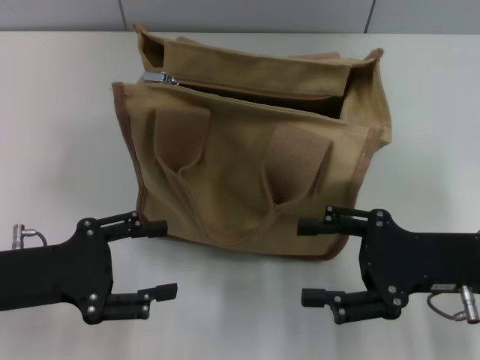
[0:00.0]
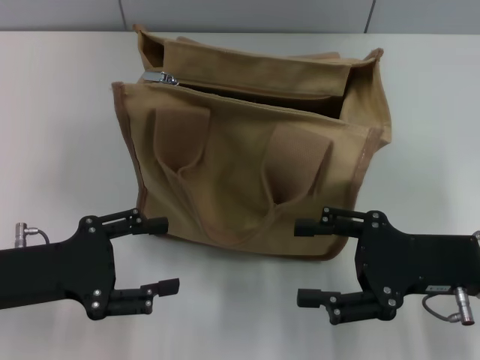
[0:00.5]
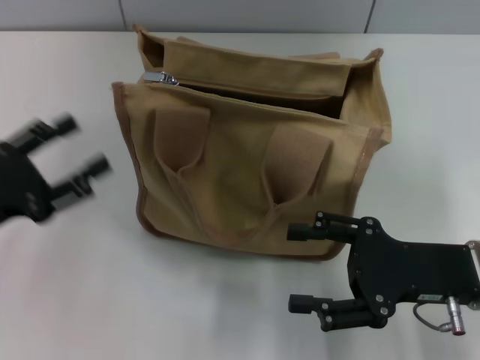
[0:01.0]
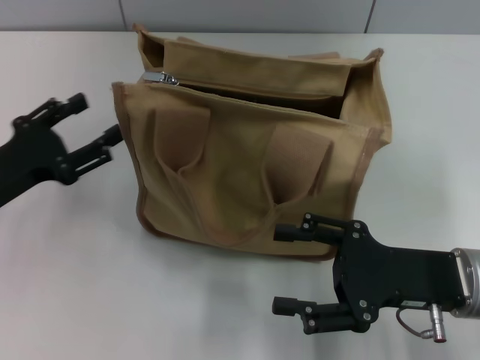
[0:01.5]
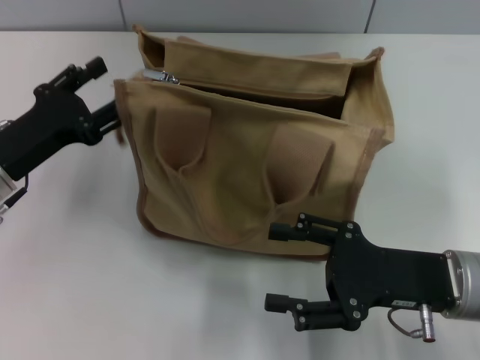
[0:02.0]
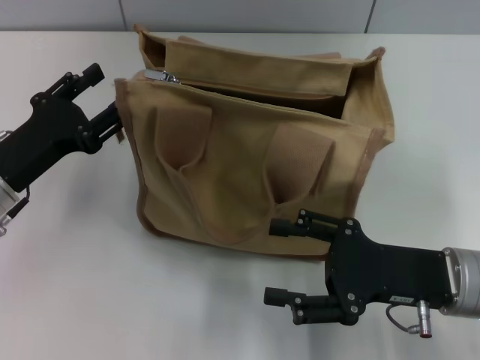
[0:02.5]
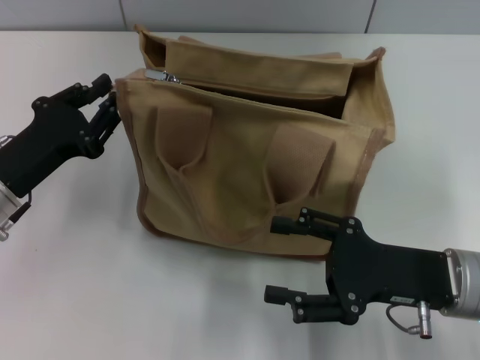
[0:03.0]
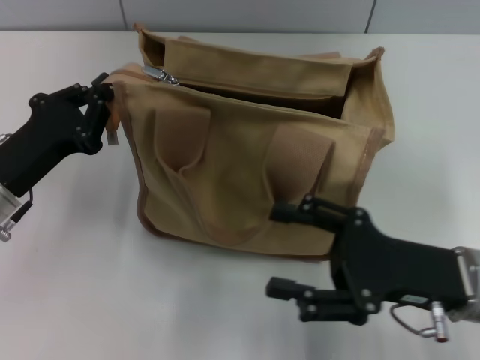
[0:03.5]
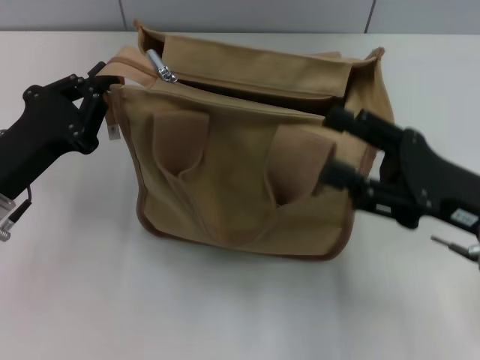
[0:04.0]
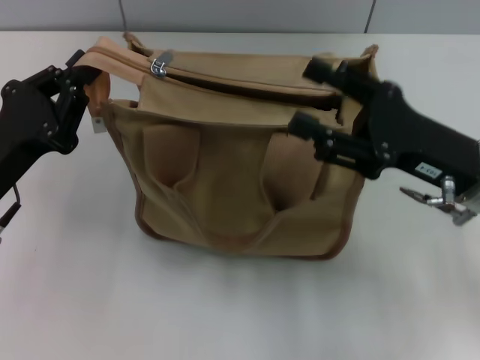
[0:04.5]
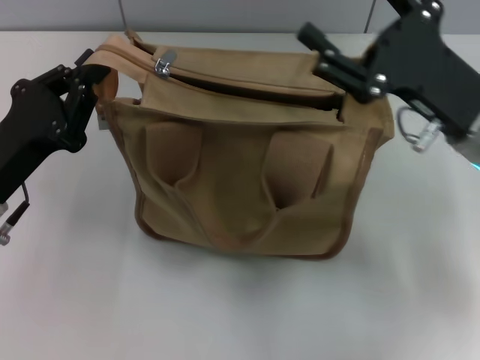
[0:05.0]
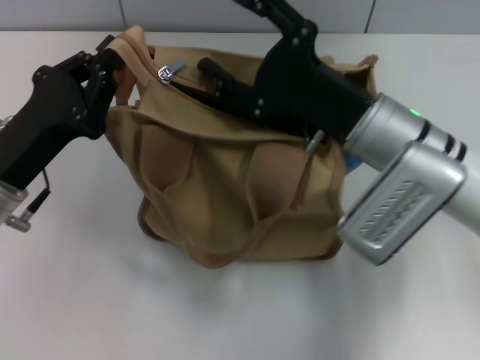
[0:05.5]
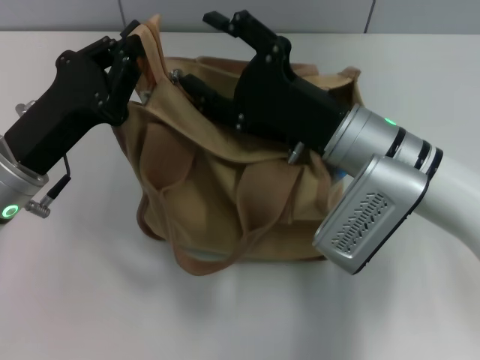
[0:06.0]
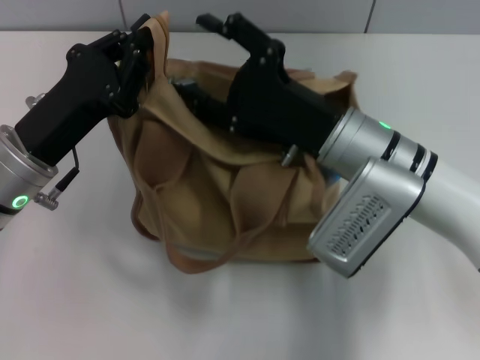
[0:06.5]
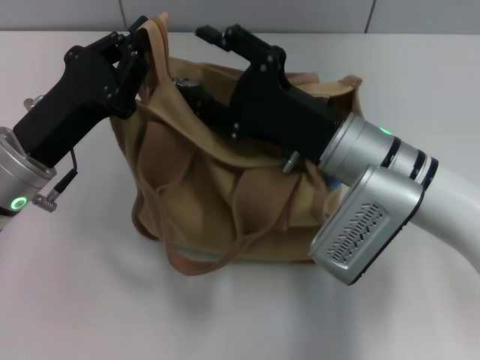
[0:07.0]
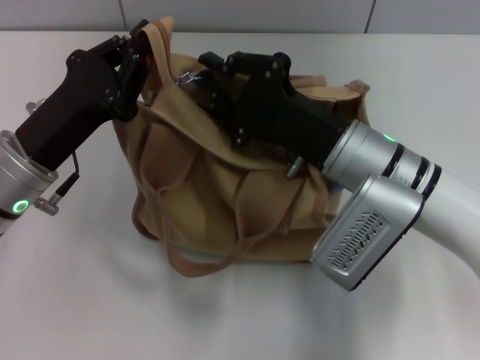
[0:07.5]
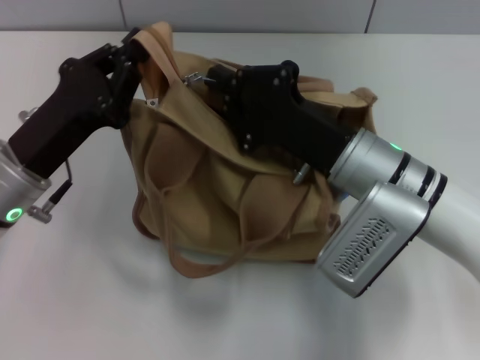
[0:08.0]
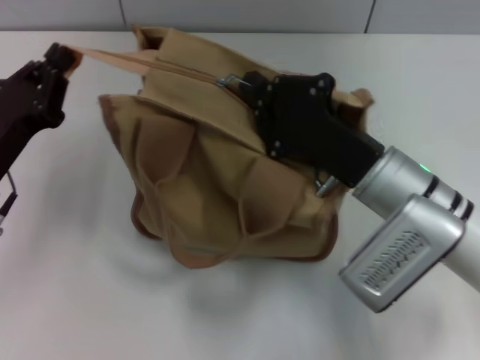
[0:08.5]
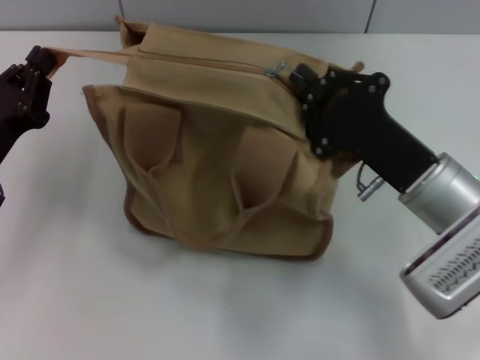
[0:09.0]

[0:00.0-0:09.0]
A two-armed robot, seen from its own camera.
0:00.0 to 0:02.0: The left gripper moves forward, roughly 5 cm.
0:02.0 to 0:04.5: The left gripper closes. Meanwhile the right gripper moves forward, about 5 cm.
0:04.5 to 0:07.0: The left gripper ends up roughly 5 cm from where it was. The right gripper is displaced to the left by about 10 cm.
0:07.0 to 0:09.0: The right gripper moves to the right, roughly 5 cm, and closes. Meanwhile the left gripper moves to the left, about 5 cm.

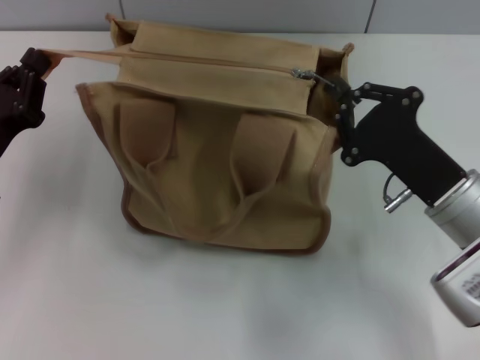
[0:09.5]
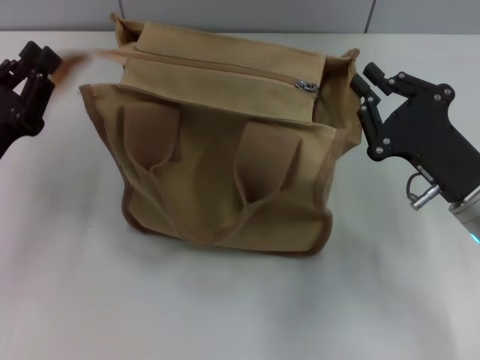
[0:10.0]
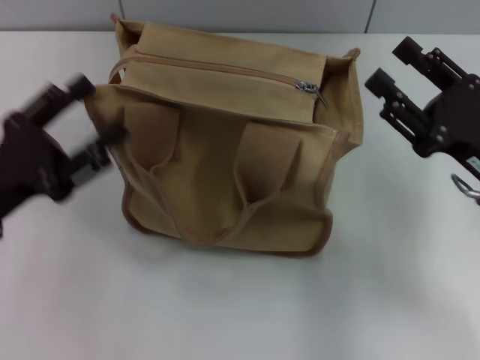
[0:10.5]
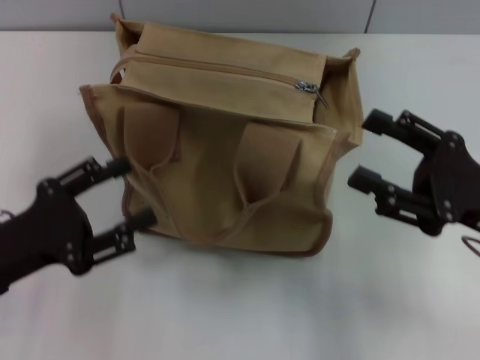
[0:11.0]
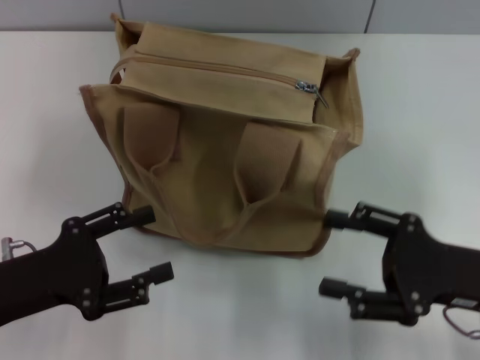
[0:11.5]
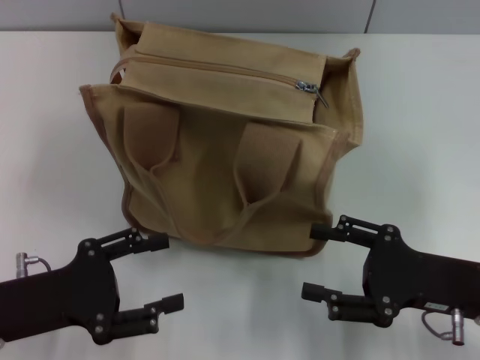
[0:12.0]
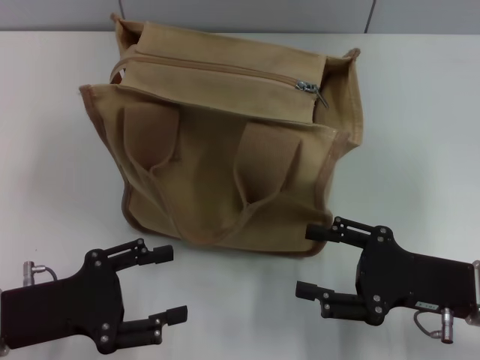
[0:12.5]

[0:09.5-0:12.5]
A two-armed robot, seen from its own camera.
0:09.5 to 0:11.0: The left gripper goes some 5 cm backward, and opens up. Meanwhile the right gripper is displaced to the right by roughly 5 cm, and opens up.
0:11.0 to 0:12.5: The right gripper shifts by about 5 cm.
